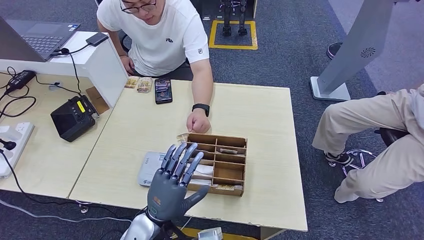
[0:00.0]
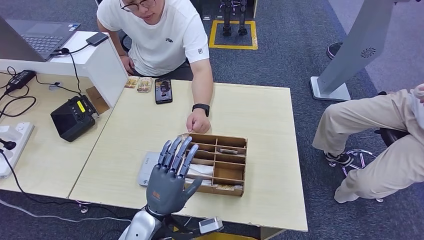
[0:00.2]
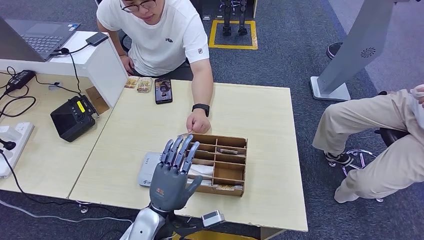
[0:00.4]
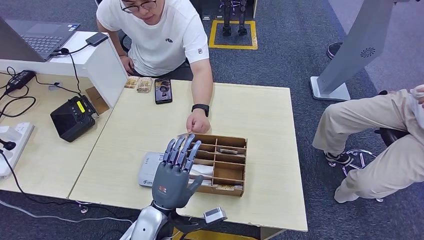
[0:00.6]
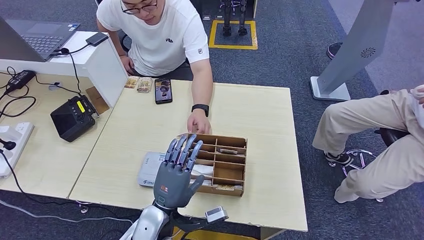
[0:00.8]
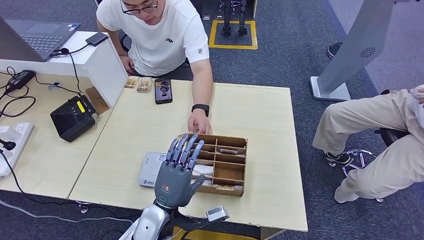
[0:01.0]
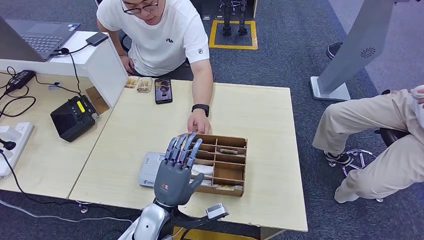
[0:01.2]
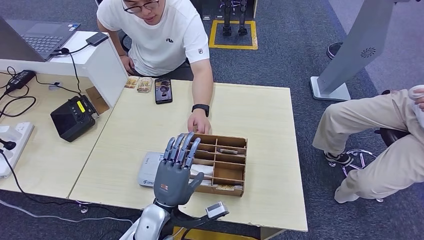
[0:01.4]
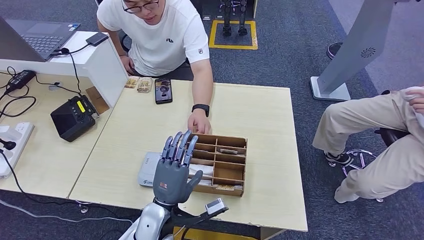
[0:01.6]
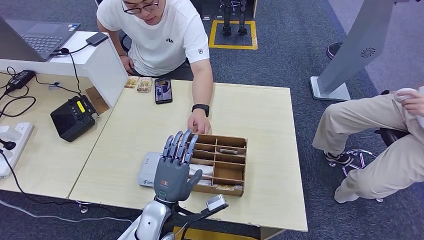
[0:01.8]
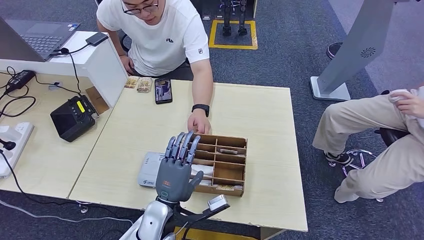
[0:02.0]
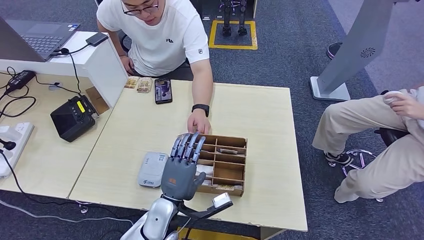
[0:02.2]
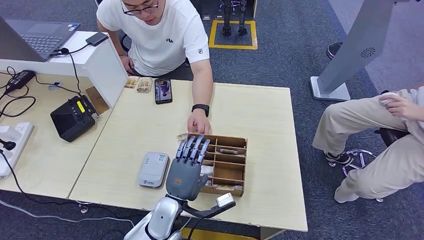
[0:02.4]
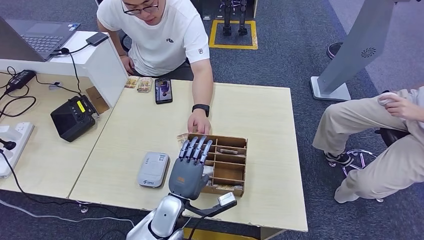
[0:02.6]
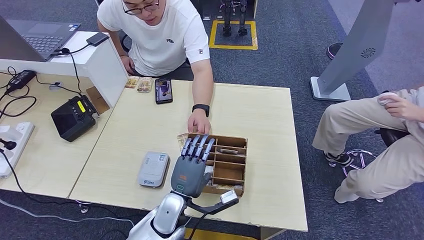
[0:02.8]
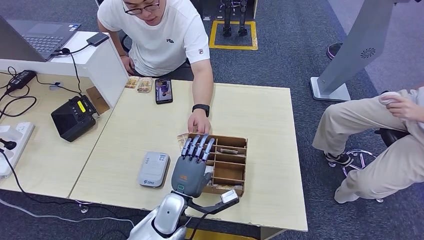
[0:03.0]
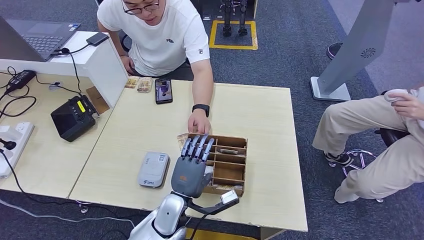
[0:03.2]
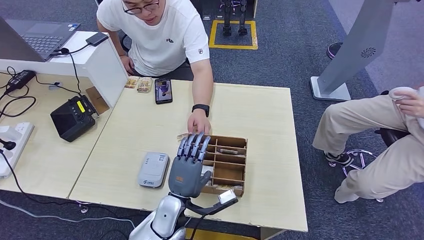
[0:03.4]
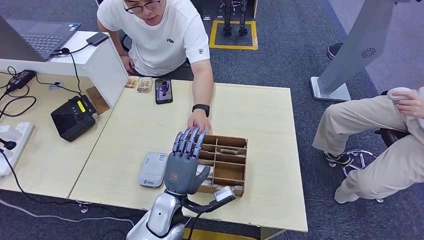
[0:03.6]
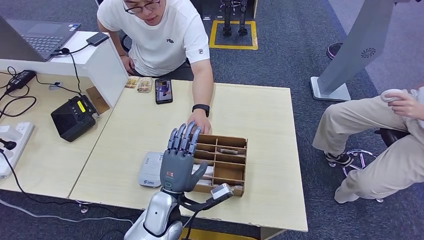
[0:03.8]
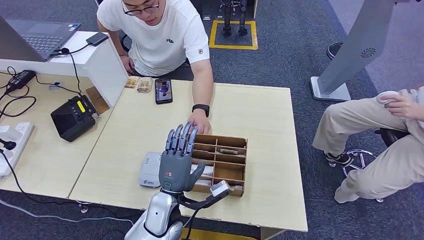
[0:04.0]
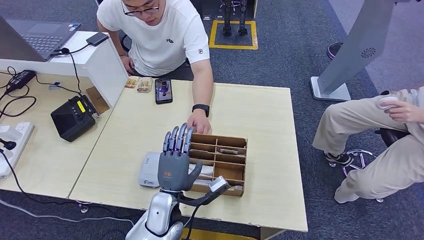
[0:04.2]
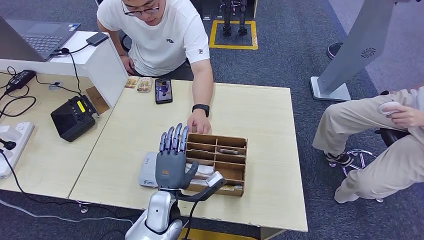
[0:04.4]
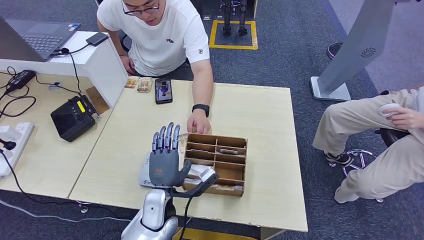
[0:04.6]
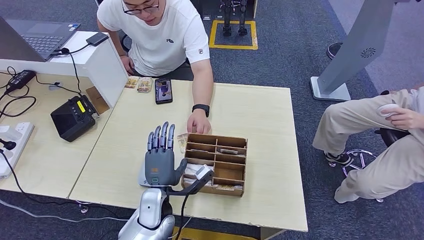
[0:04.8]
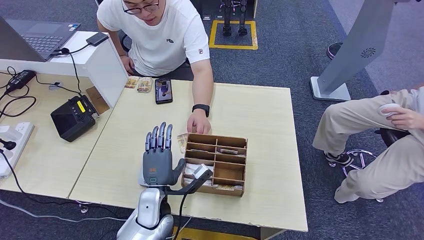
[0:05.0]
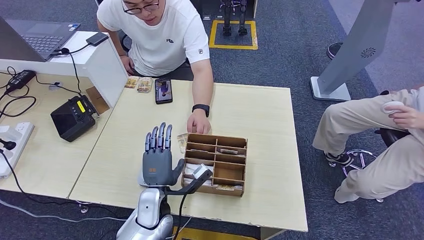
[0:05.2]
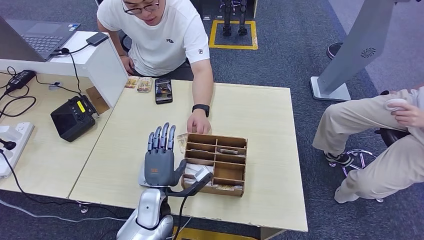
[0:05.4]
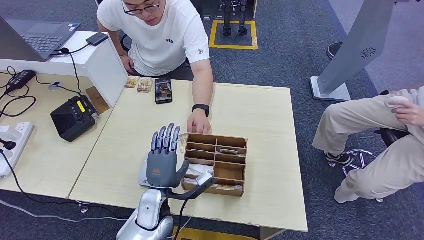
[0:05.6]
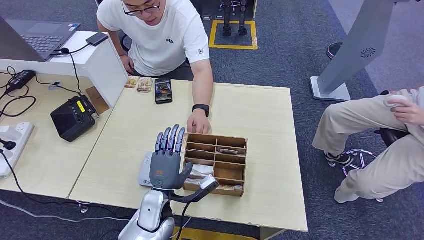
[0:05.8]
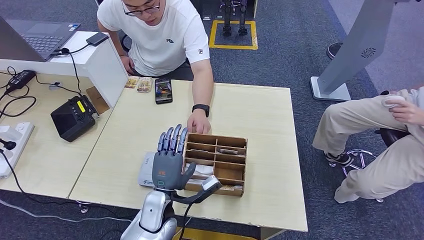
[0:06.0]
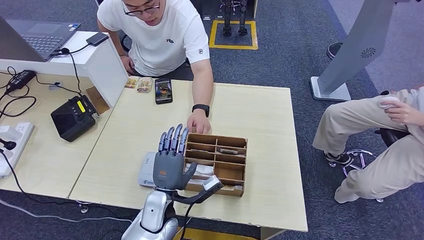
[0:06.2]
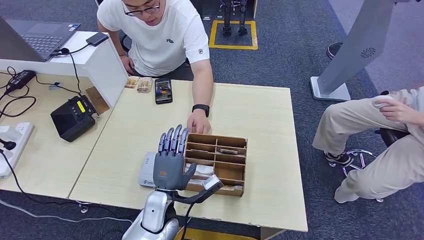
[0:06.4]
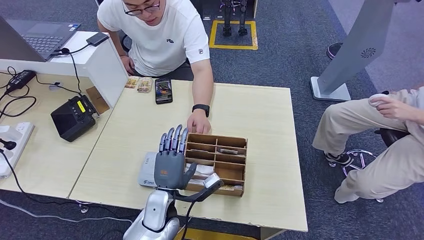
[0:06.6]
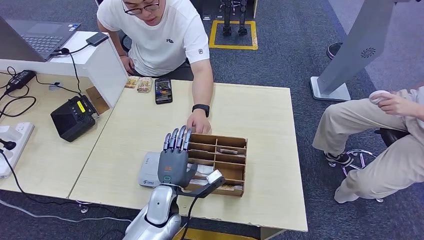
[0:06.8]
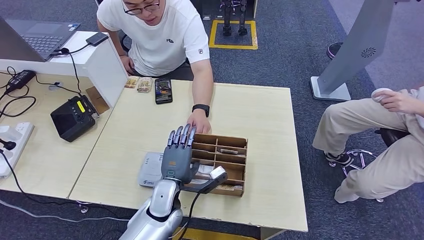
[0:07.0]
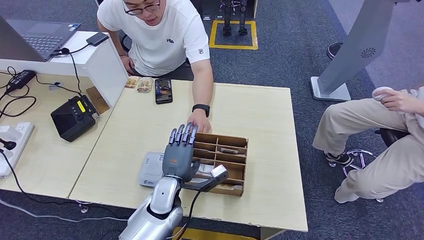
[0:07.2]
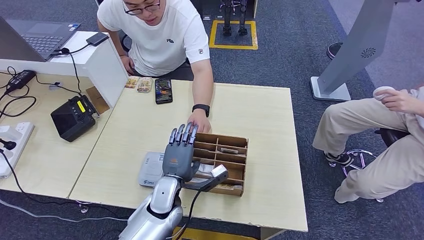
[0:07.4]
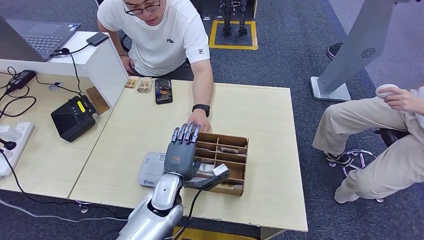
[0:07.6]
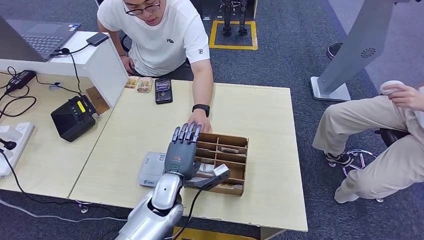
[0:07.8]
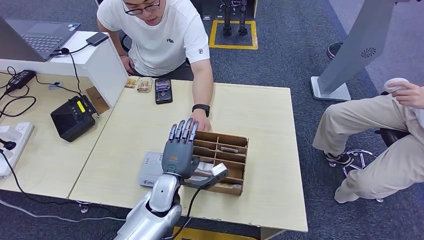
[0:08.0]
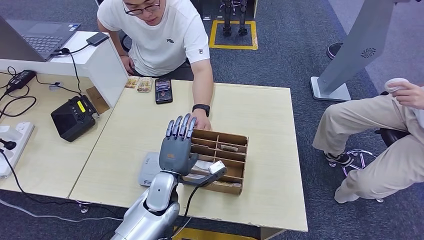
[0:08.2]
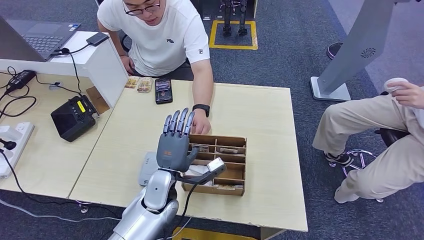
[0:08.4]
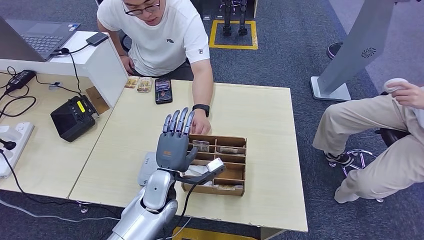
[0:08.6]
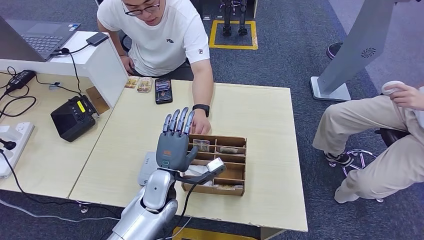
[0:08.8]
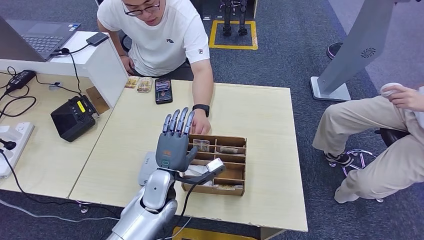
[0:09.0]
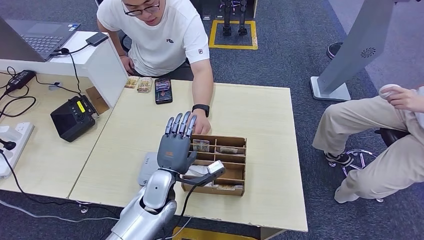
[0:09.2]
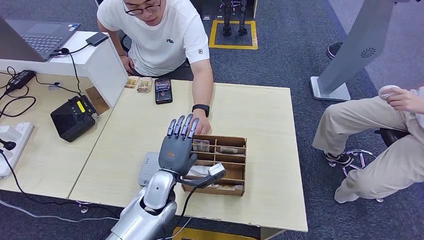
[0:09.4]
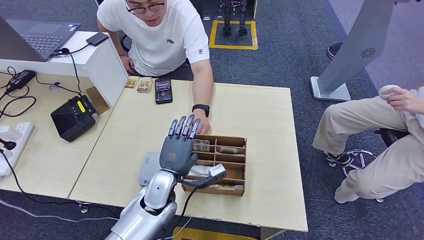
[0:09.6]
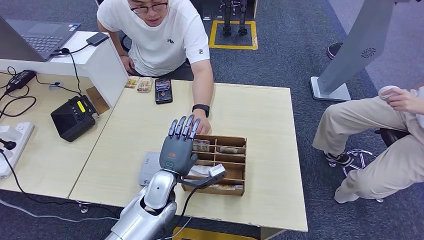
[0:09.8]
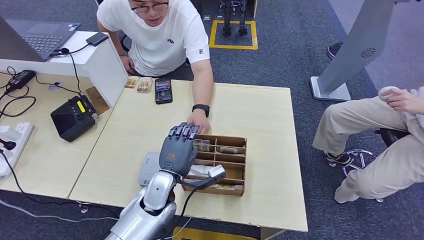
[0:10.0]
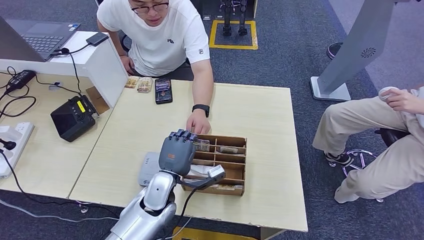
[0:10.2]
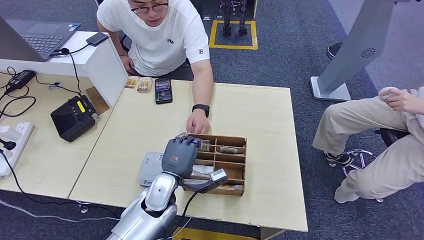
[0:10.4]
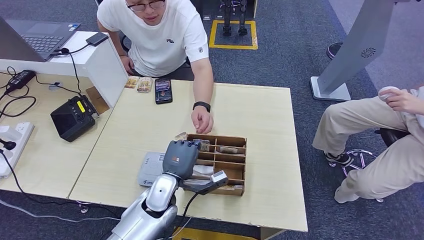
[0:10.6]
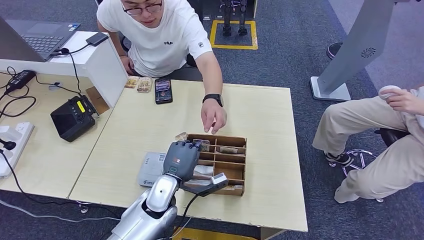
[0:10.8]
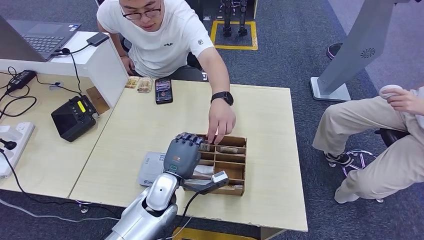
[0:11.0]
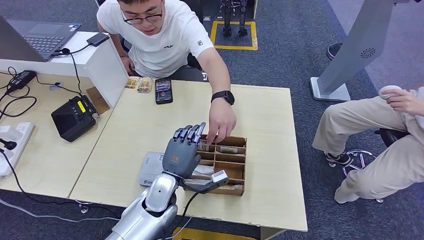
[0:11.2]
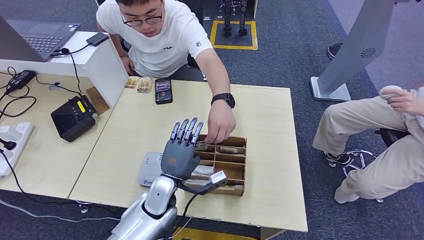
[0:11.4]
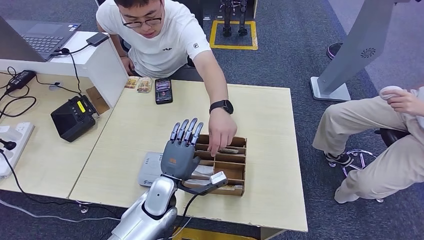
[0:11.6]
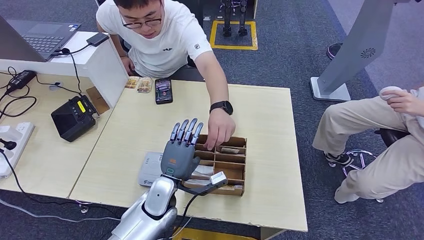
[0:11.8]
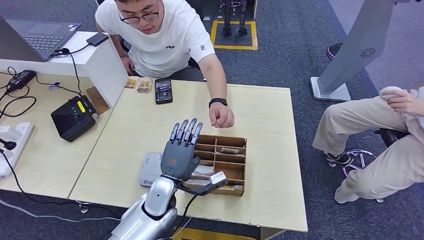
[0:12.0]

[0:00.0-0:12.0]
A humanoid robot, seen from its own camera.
0:00.0 to 0:01.6: There are only small adjustments of the hands.
0:01.6 to 0:03.0: The left hand moves approximately 5 cm.
0:03.0 to 0:04.4: The hands move only a little.
0:04.4 to 0:10.4: There are only small adjustments of the hands.
0:10.4 to 0:12.0: The hands make only small movements.

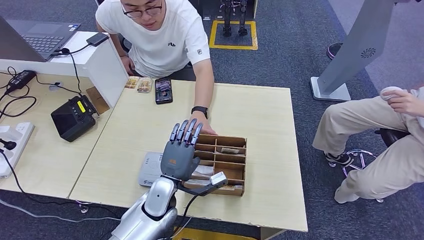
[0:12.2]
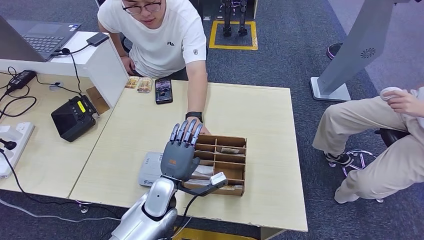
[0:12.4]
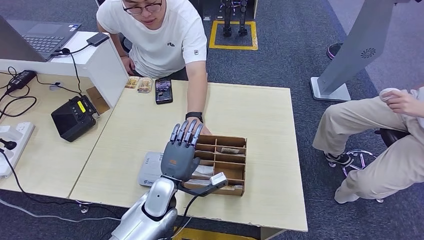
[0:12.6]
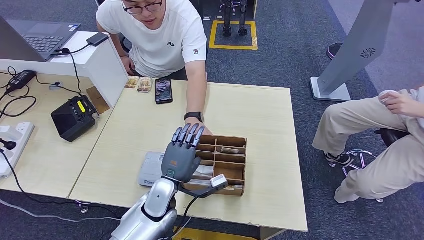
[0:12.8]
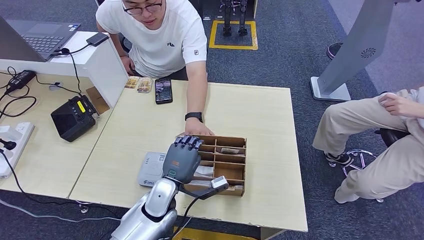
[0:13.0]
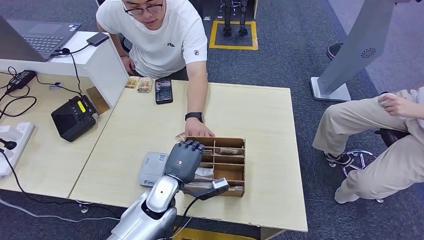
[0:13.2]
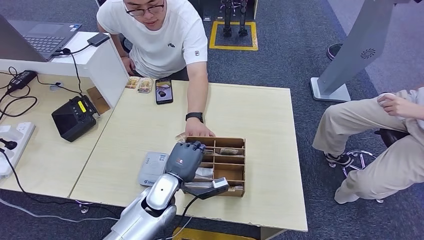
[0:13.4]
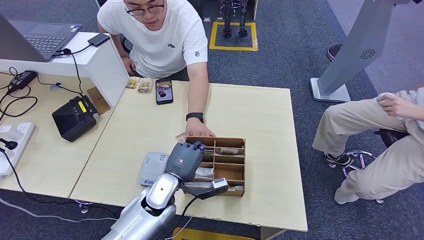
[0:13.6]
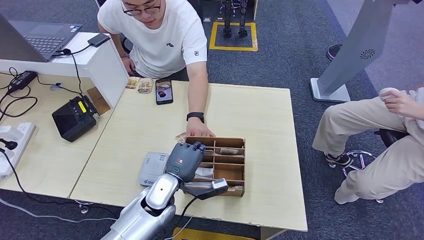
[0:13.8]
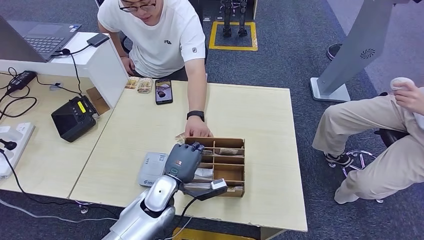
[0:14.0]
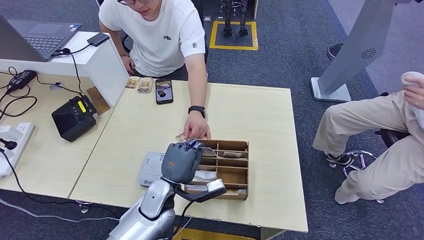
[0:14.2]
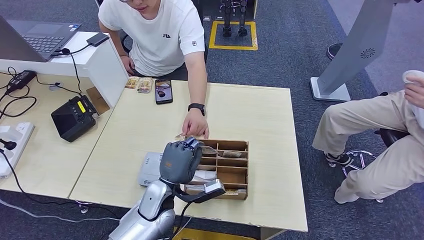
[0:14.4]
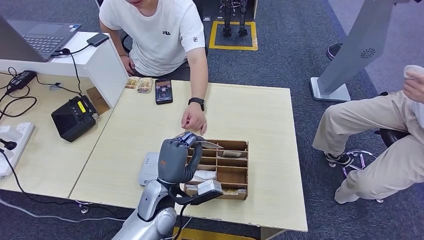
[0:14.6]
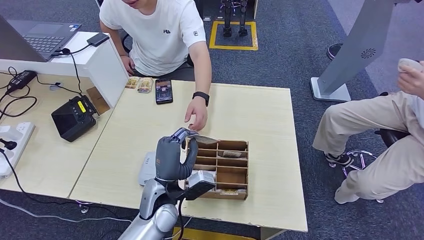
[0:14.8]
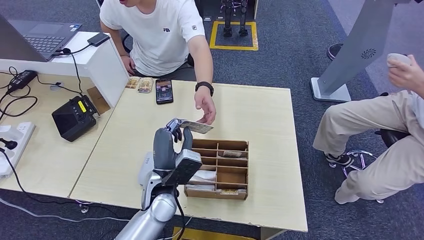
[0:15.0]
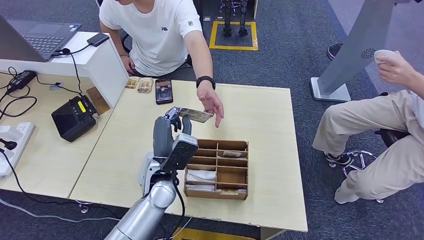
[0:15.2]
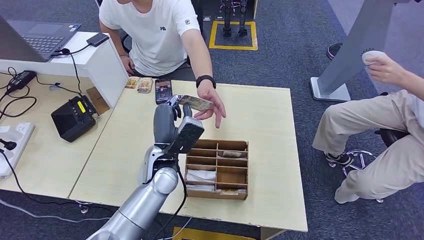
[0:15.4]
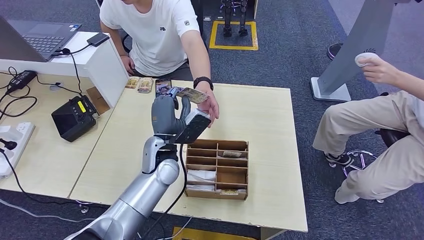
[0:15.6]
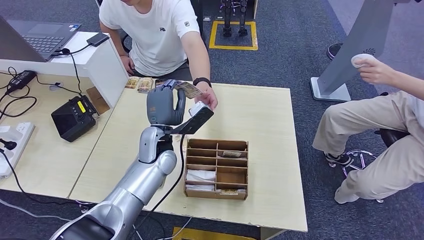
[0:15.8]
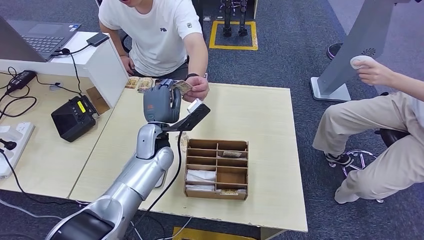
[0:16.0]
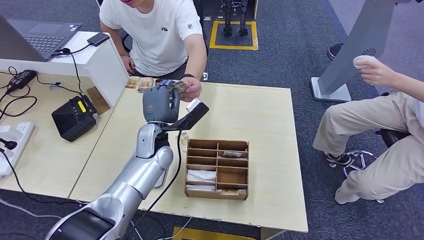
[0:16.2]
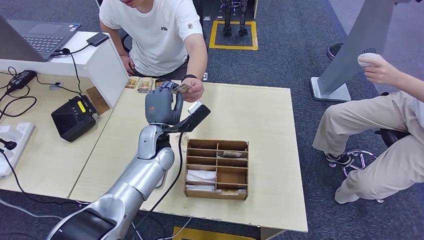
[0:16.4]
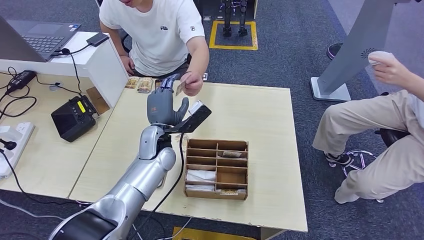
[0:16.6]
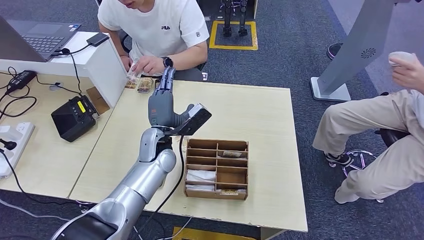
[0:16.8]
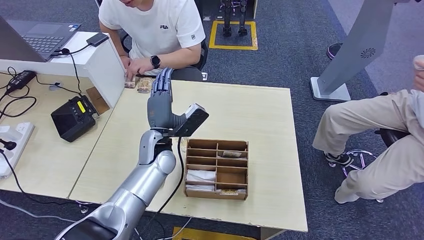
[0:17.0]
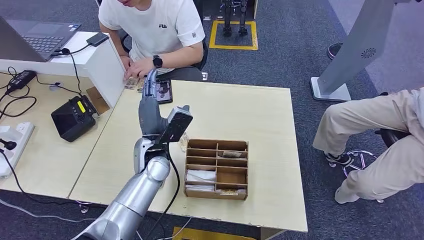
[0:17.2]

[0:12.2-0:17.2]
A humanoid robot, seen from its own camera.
Step, 0:12.2 to 0:14.6: Pick up the room key from the key card box.
Step, 0:14.8 to 0:17.0: Hand the room key to the person.
0:12.2 to 0:13.8: There are only small adjustments of the hands.
0:13.8 to 0:15.6: The left hand heads upward and forward, covering some 10 cm.
